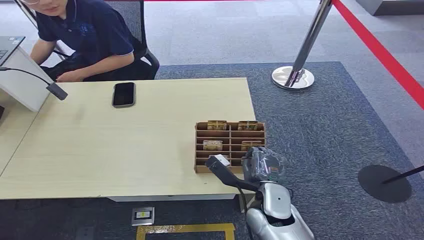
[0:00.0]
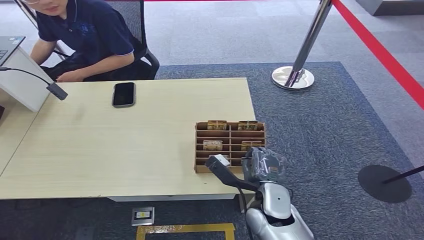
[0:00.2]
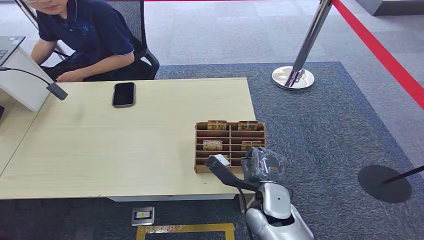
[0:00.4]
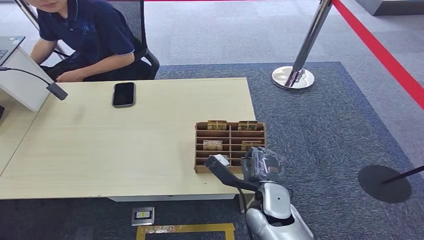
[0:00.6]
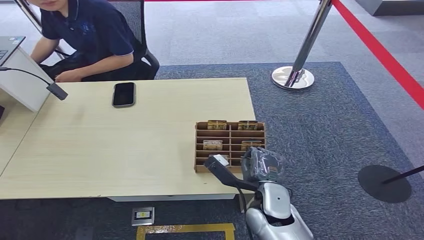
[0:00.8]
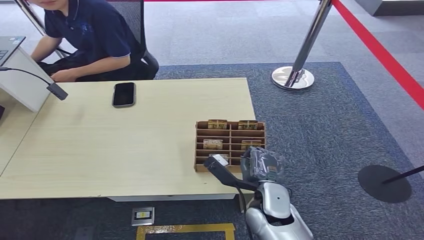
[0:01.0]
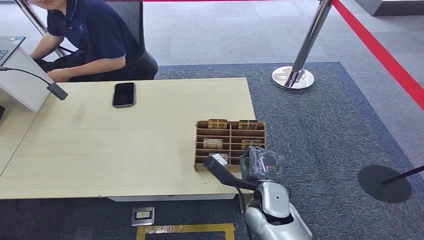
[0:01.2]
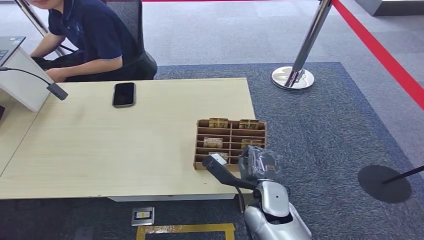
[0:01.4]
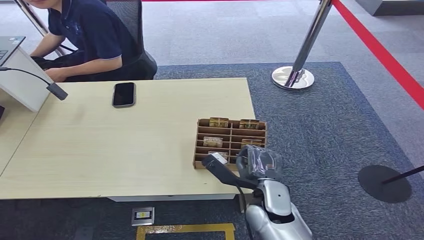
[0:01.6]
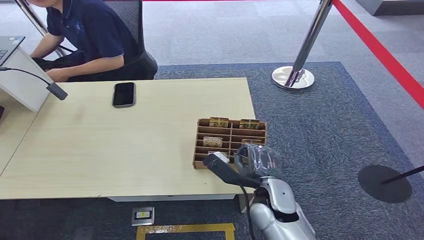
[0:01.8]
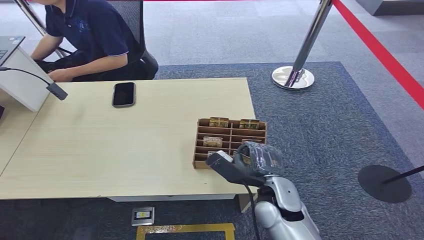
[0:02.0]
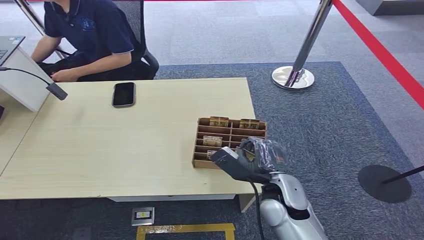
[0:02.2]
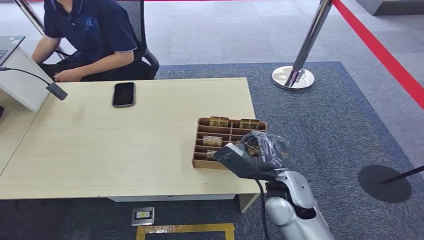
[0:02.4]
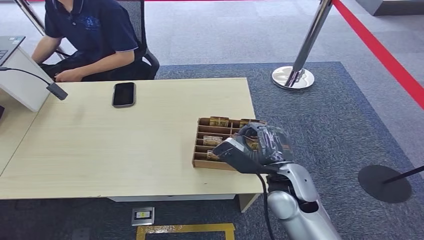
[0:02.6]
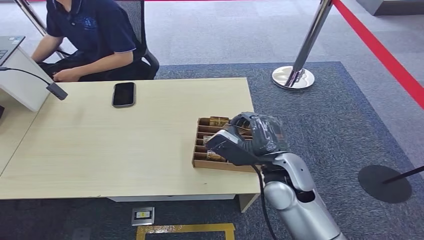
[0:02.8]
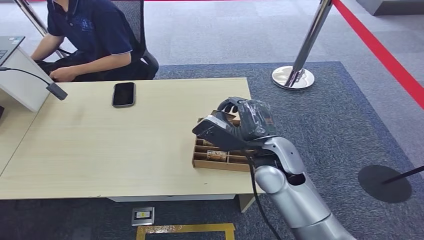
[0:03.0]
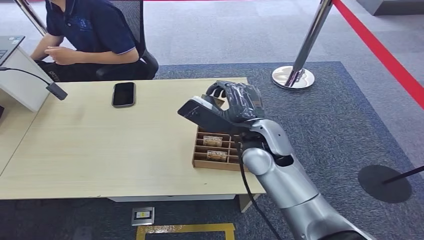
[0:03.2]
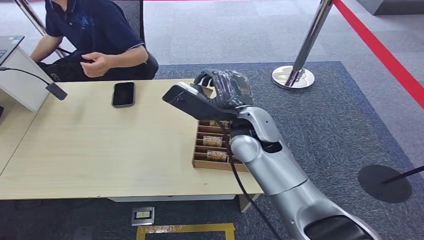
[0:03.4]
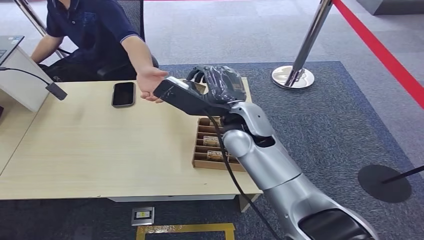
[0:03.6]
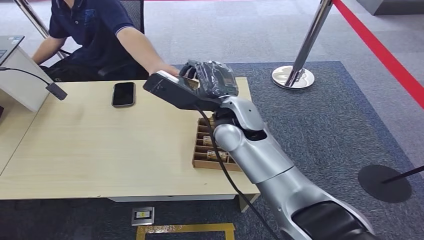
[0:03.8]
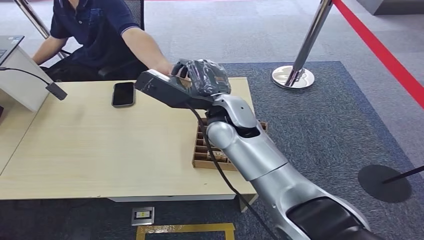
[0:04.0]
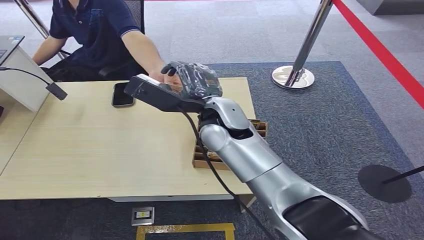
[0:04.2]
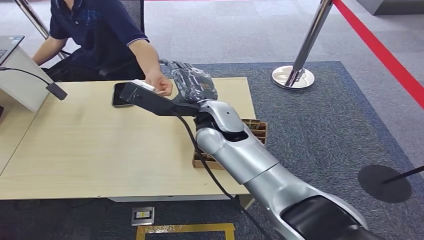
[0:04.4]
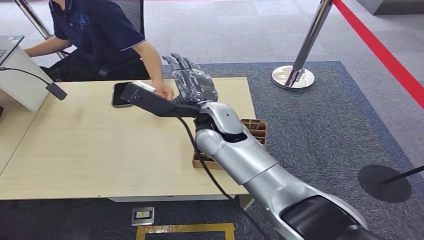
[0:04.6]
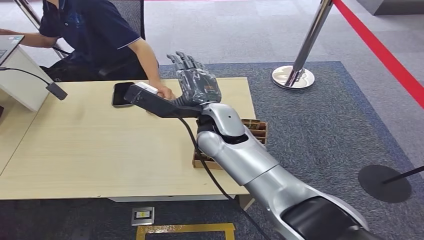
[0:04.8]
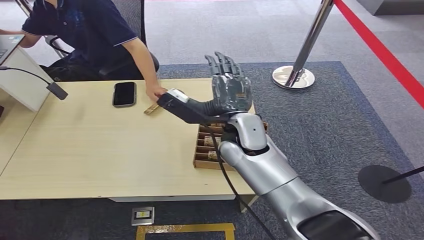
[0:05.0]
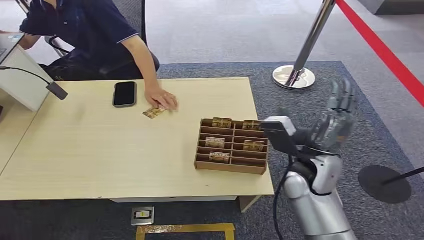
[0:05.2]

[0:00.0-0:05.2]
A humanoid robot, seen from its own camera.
Step, 0:00.0 to 0:03.0: Pick up the room card from the card holder.
Step, 0:03.2 to 0:05.0: Hand the room card to the target.
0:01.8 to 0:03.4: The right hand moves upward, forward and to the left, approximately 25 cm.

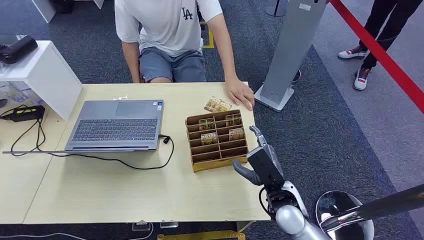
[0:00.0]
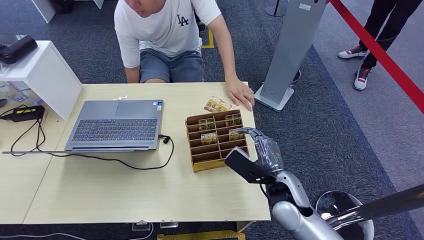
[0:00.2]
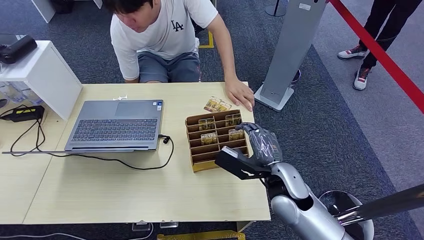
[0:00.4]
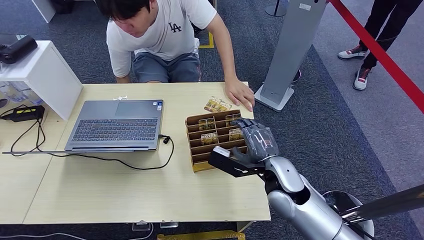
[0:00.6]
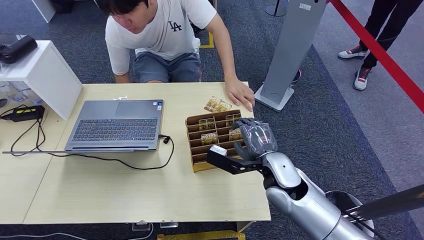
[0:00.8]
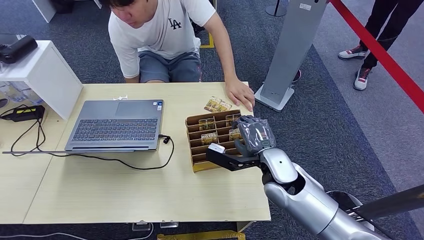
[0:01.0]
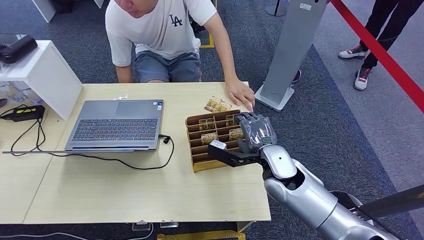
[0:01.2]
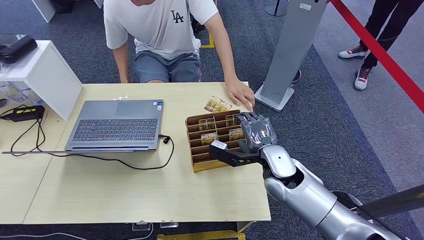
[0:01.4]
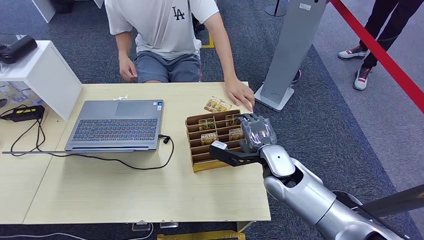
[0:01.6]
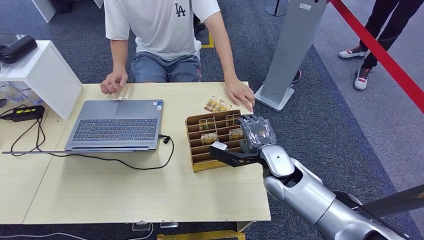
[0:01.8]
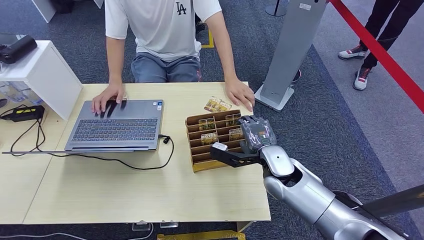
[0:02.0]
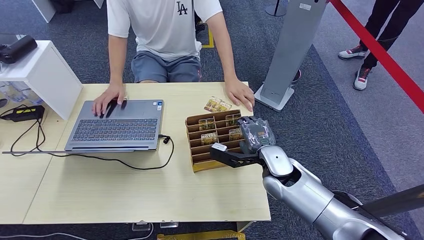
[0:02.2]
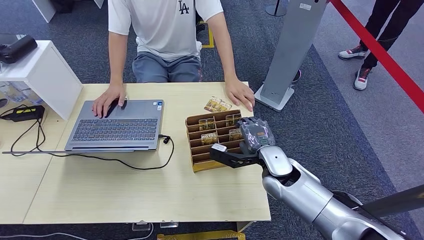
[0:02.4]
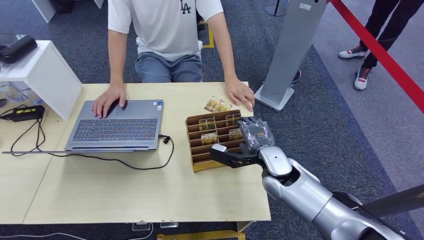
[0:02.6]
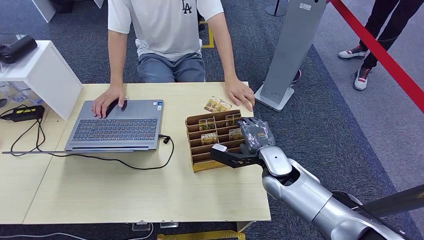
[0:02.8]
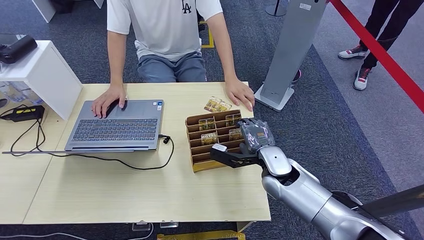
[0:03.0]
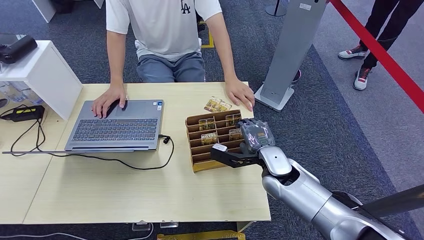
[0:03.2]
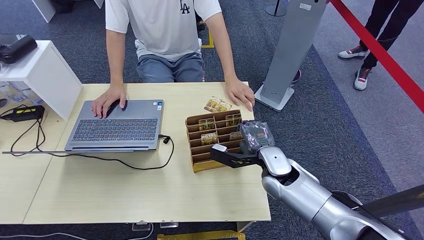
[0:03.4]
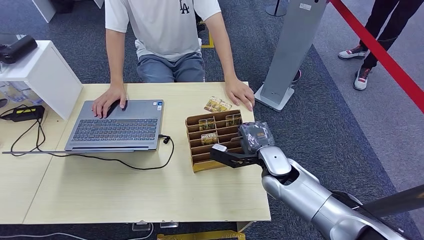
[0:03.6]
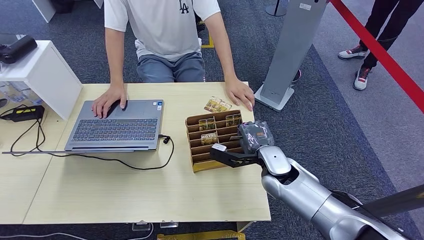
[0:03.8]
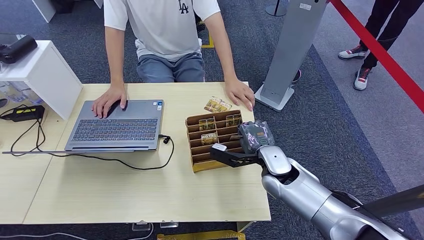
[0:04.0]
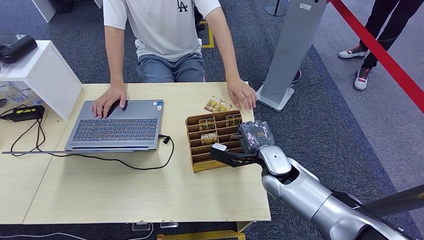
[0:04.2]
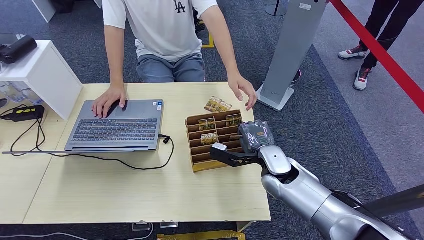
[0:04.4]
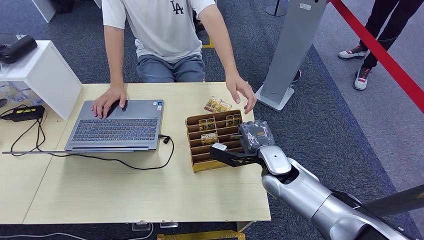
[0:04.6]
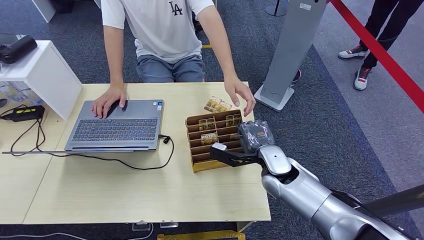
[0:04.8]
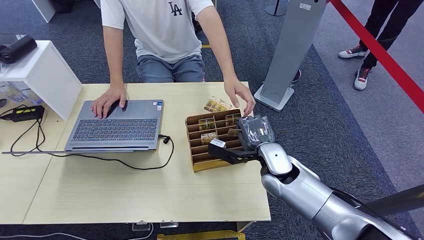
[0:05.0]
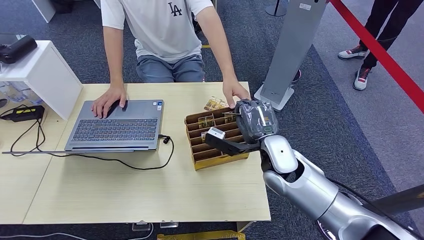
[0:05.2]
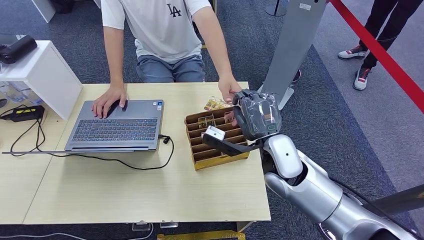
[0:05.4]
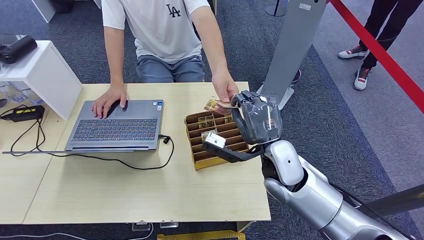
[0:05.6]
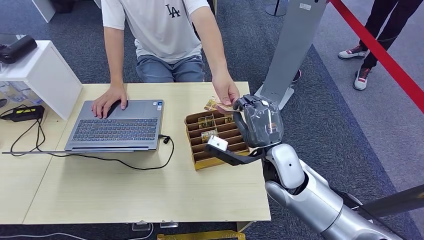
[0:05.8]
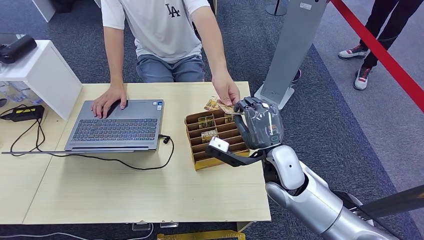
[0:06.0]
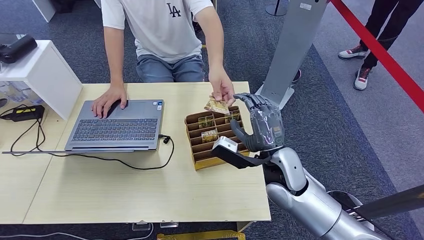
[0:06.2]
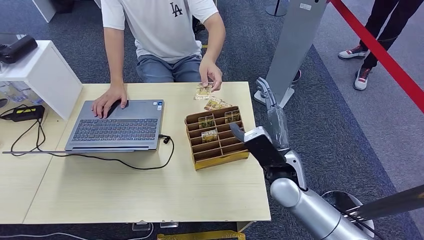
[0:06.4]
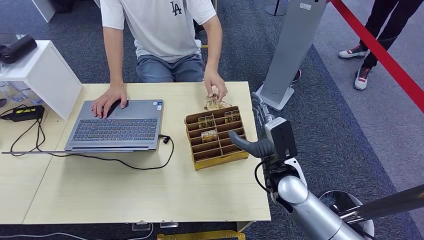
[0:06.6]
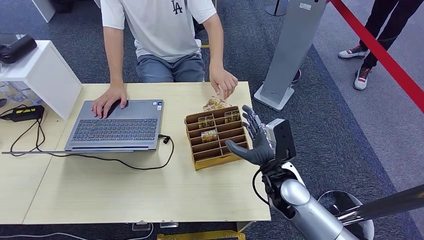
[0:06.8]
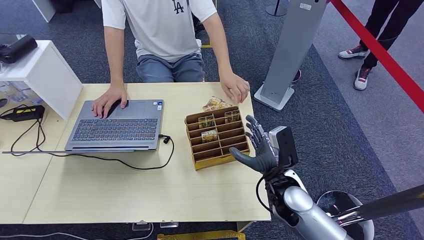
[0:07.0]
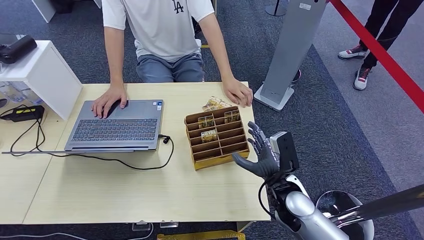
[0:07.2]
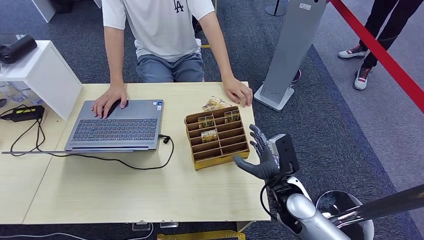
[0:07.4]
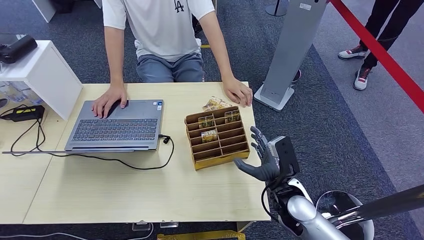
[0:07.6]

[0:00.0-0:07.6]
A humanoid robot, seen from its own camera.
Step, 0:00.0 to 0:05.2: Pick up the room card from the card holder.
Step, 0:05.4 to 0:07.6: Hand the room card to the target.
0:01.6 to 0:04.6: Neither hand changes place.
0:06.0 to 0:07.6: The right hand heads downward, covering about 10 cm.
